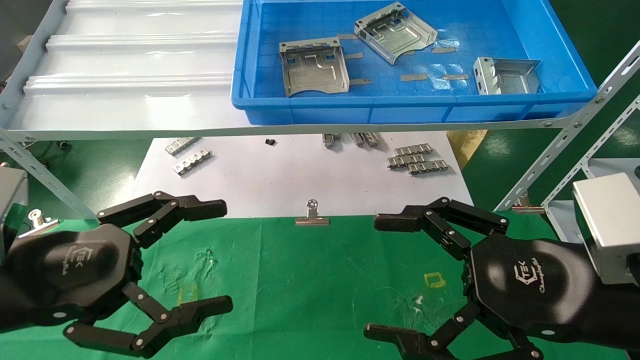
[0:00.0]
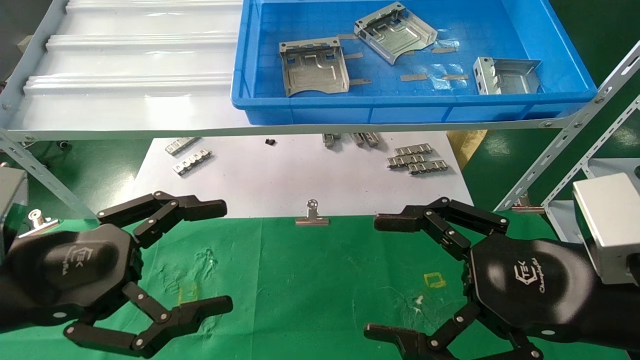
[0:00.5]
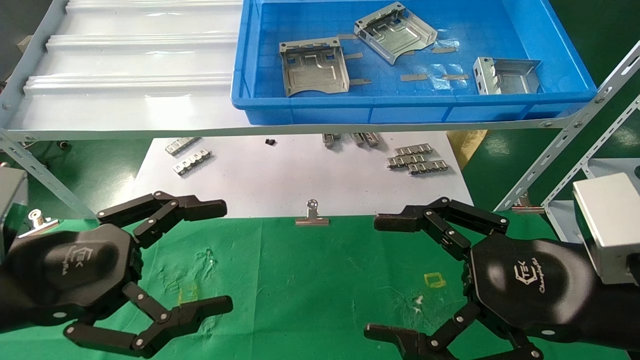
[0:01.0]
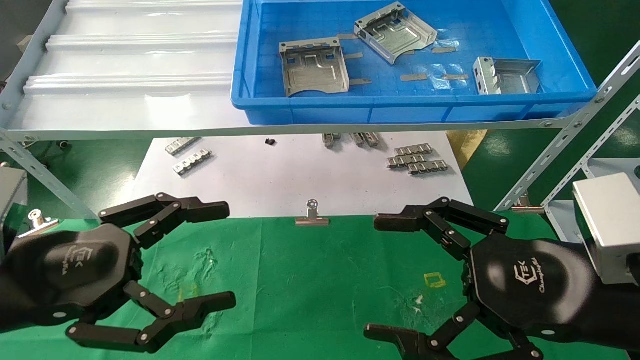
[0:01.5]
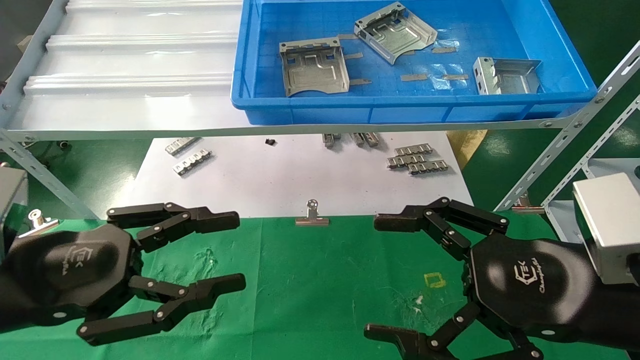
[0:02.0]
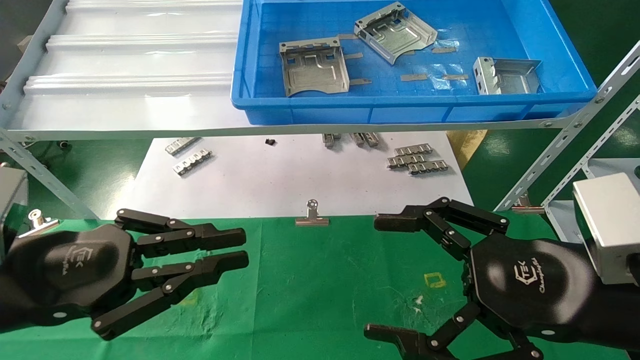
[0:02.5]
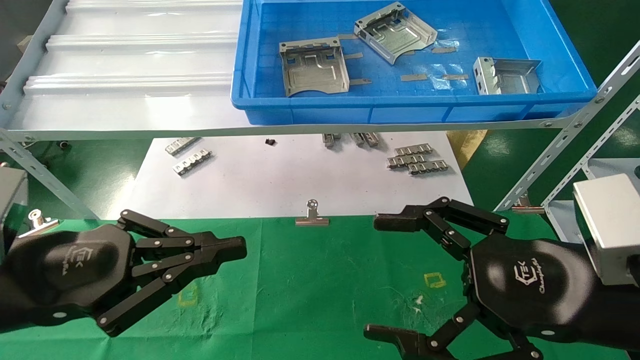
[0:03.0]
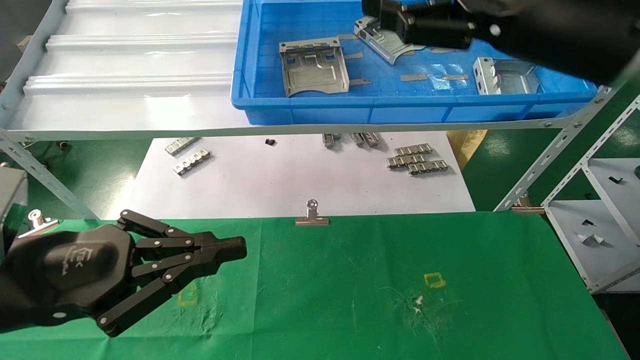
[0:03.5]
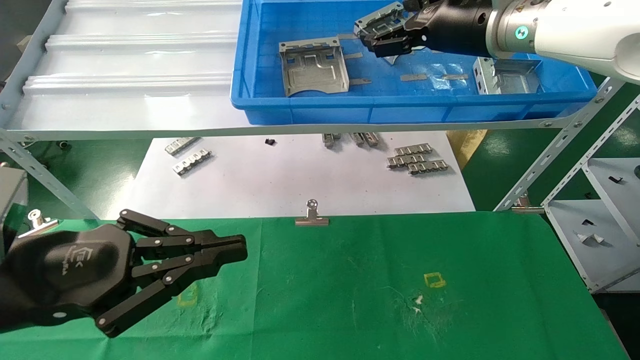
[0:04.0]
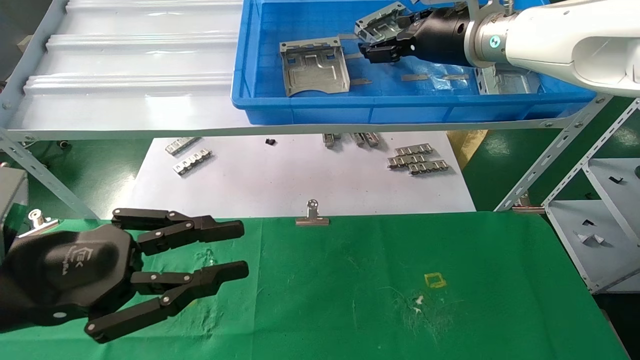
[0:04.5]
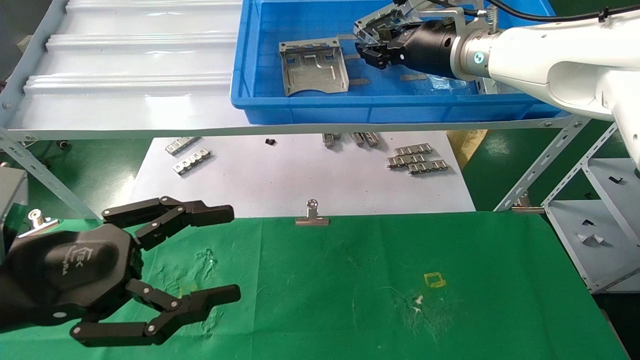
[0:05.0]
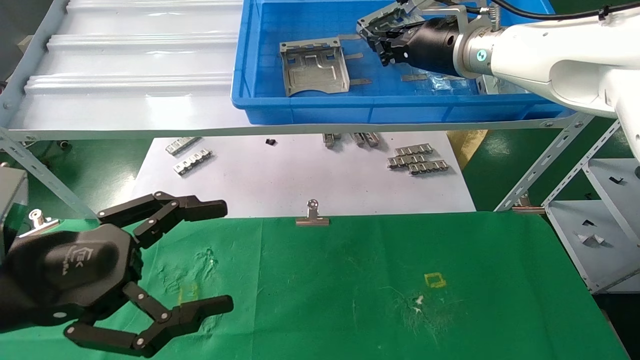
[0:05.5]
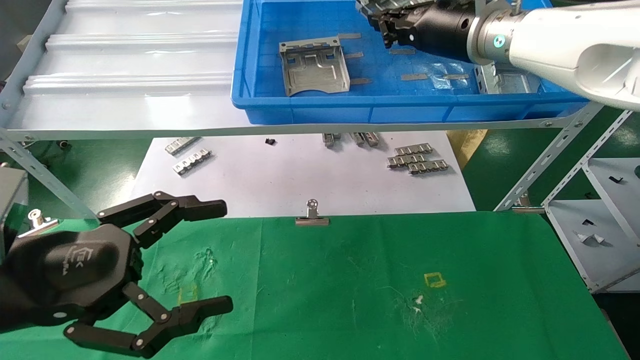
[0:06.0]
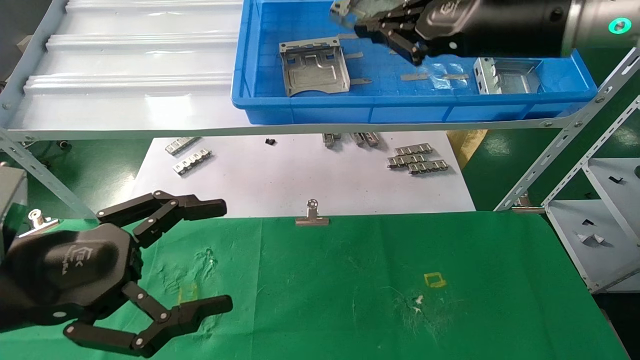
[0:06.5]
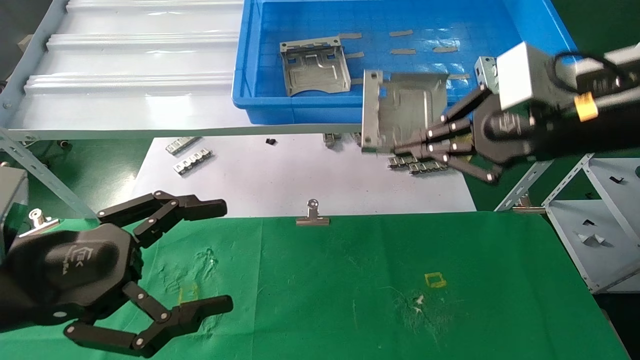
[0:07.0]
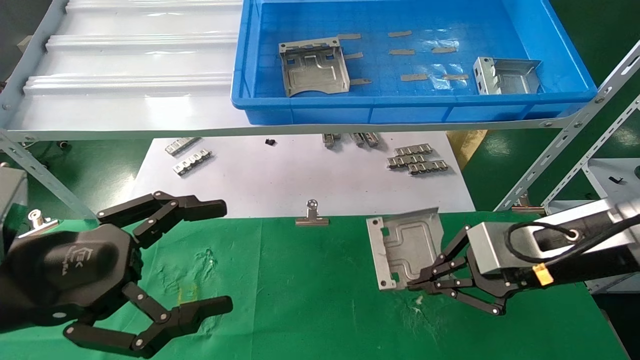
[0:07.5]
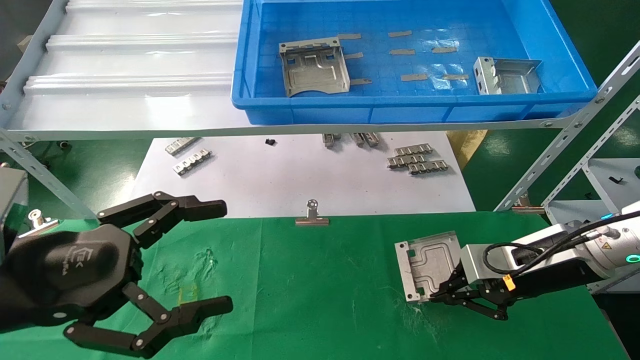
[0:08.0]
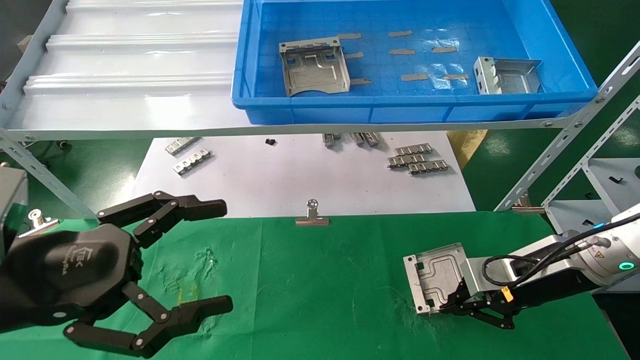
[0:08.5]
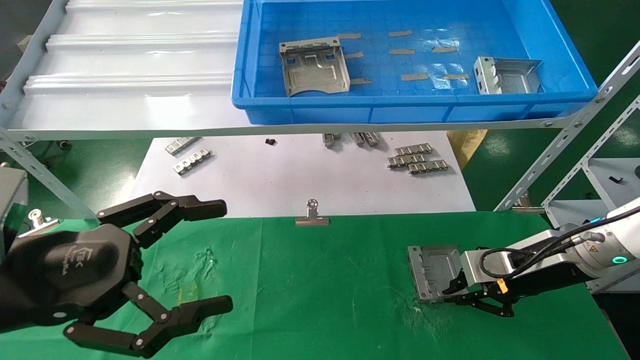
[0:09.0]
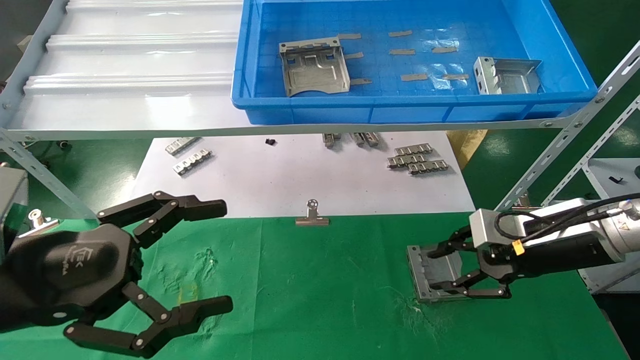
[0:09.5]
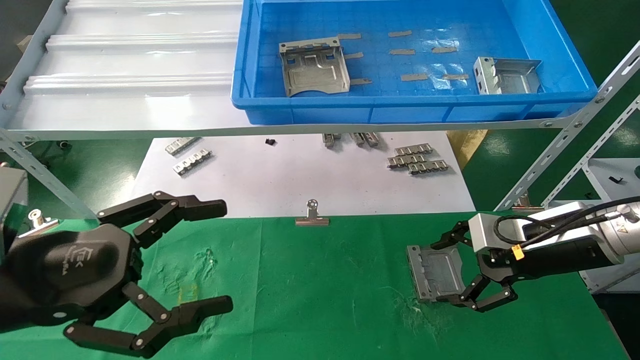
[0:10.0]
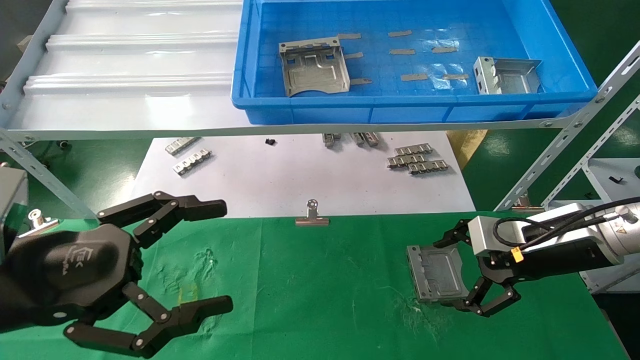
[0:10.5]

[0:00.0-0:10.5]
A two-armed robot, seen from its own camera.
Task of the whole recording: use the mechanical arm to pick up the parts and place them on the table.
Step, 0:01.5 to 0:06.5: Pick up the hard drive bracket from the feeding area.
Step, 0:07.0 to 0:10.0: Place the hard drive bracket into the box.
0:00.0 to 0:02.0: The left gripper closes its fingers.
0:02.0 to 0:04.0: The right gripper is displaced forward and upward by roughly 30 cm; the left gripper closes up.
0:04.0 to 0:06.5: The left gripper opens. Meanwhile the right gripper moves backward, approximately 10 cm, and closes its fingers.
0:06.5 to 0:08.5: The right gripper moves downward, roughly 25 cm.
0:08.5 to 0:10.5: The right gripper opens its fingers.

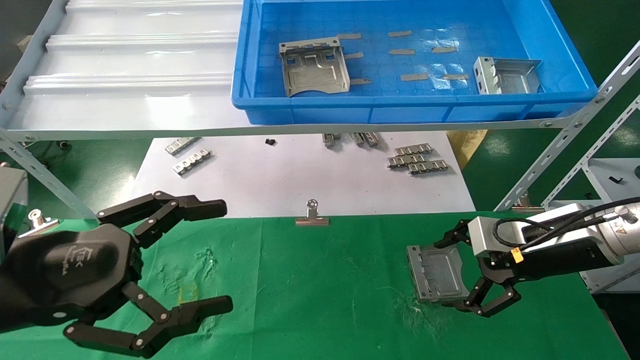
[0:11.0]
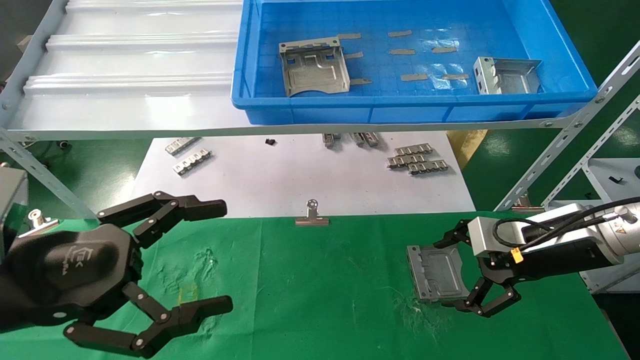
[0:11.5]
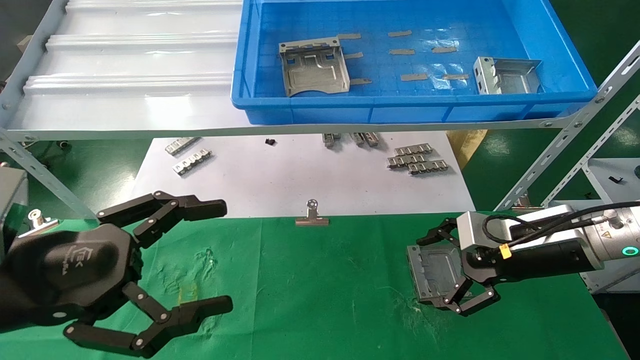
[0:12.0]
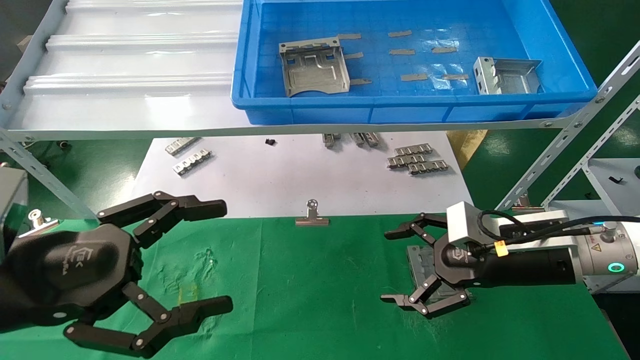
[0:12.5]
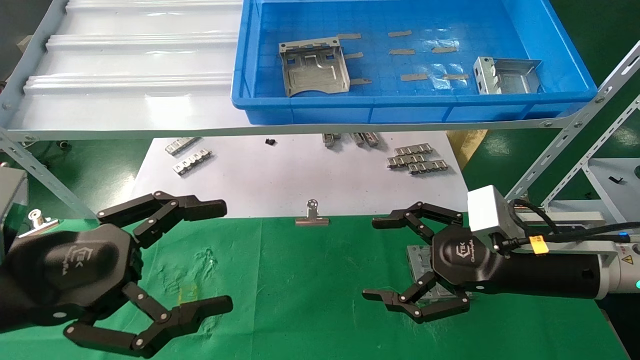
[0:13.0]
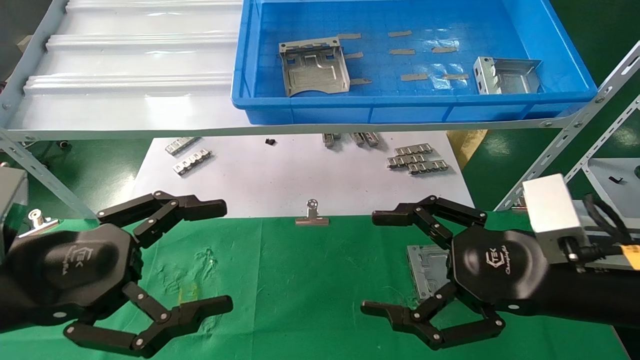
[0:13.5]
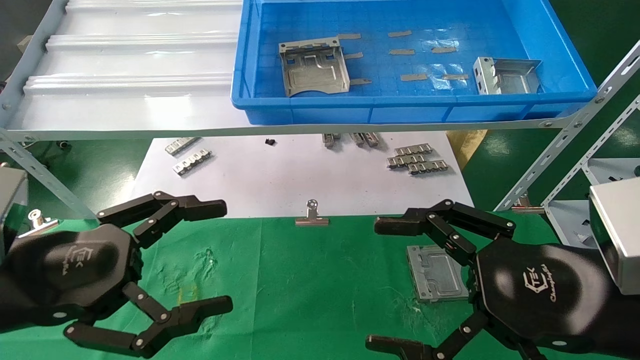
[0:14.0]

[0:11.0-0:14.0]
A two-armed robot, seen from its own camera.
Task of the whole recording: use the mechanical arm to pick up the parts and place them on the table.
0:11.0 to 0:12.5: The right gripper is displaced to the left by about 5 cm.
0:12.5 to 0:14.0: The right gripper shifts roughly 15 cm backward.
